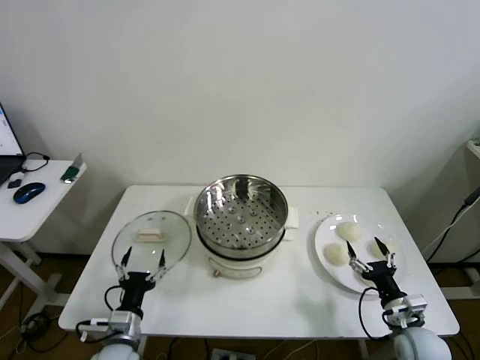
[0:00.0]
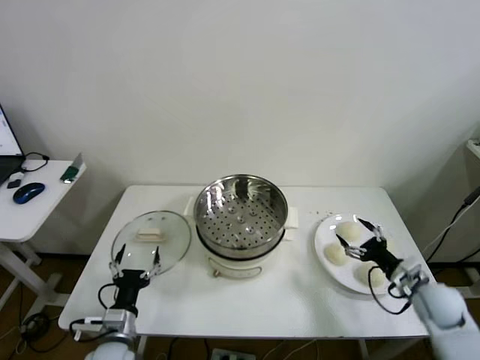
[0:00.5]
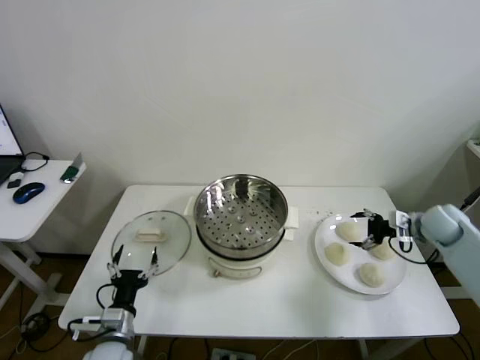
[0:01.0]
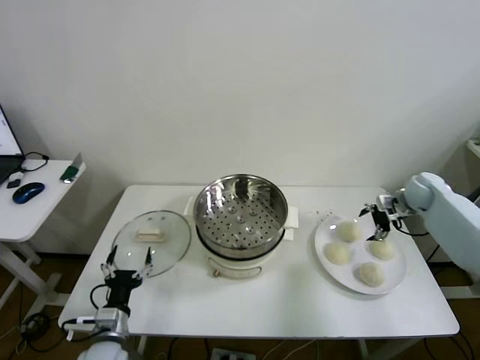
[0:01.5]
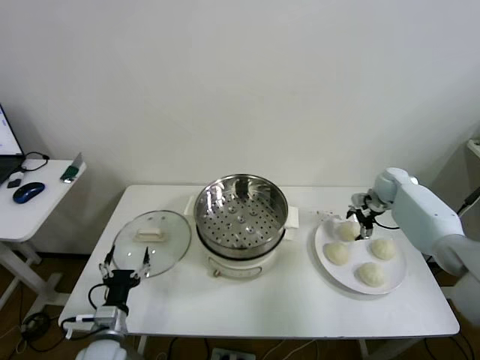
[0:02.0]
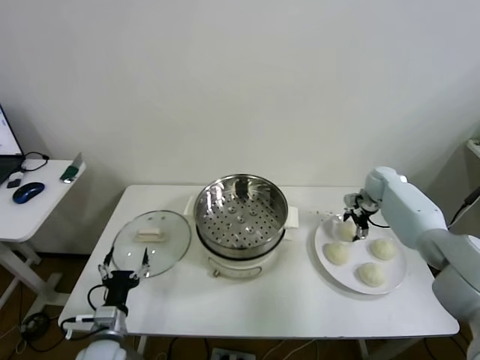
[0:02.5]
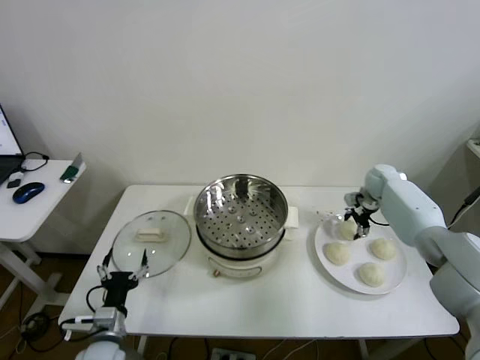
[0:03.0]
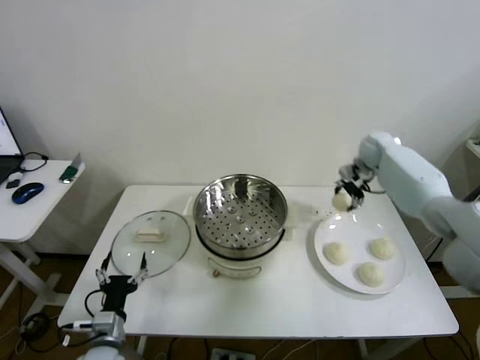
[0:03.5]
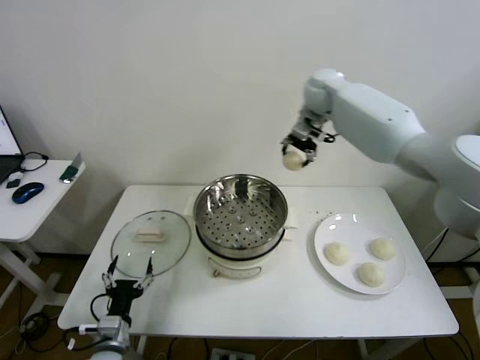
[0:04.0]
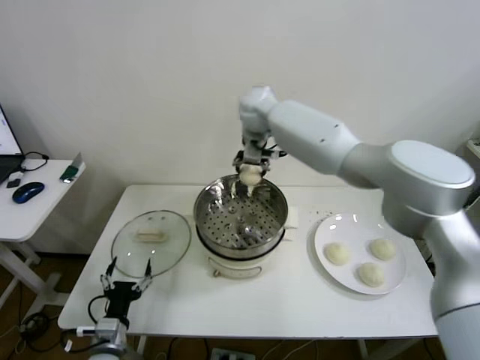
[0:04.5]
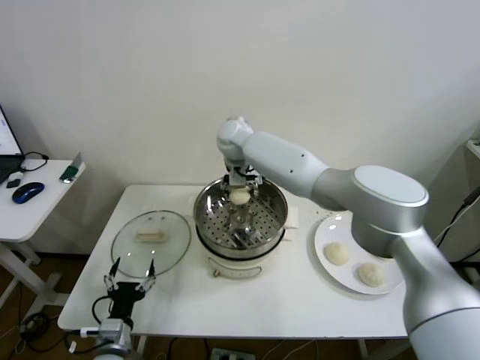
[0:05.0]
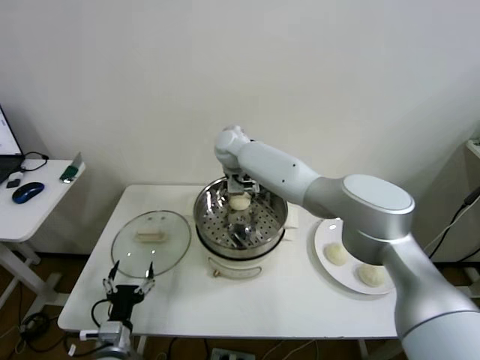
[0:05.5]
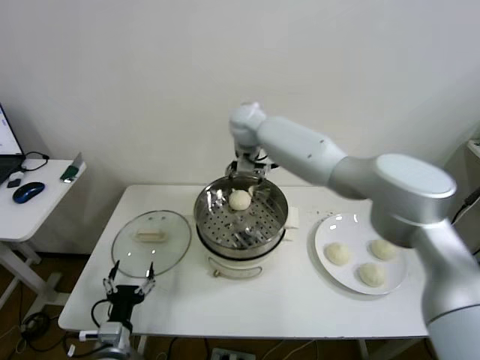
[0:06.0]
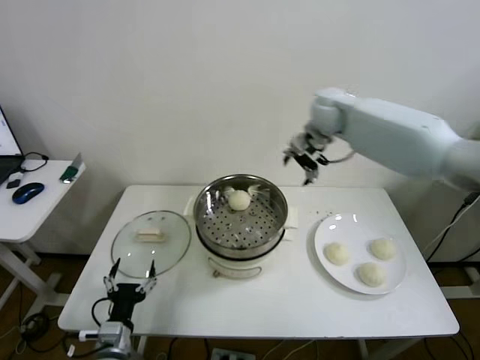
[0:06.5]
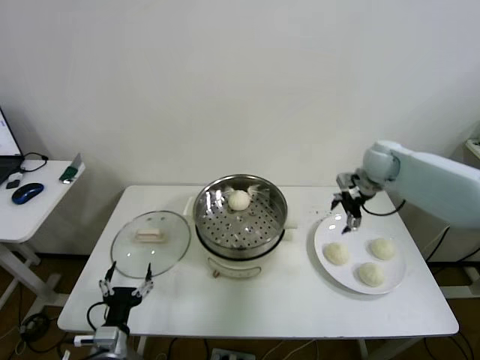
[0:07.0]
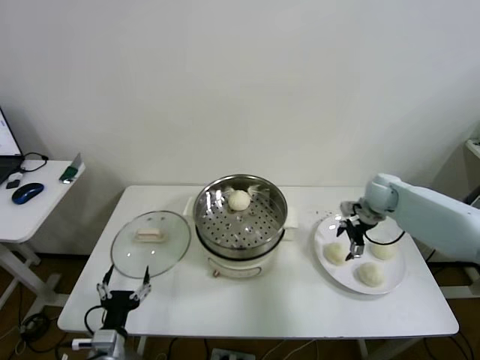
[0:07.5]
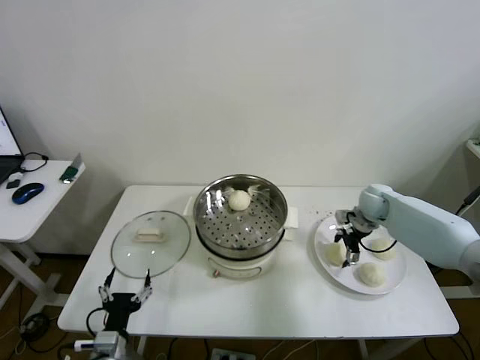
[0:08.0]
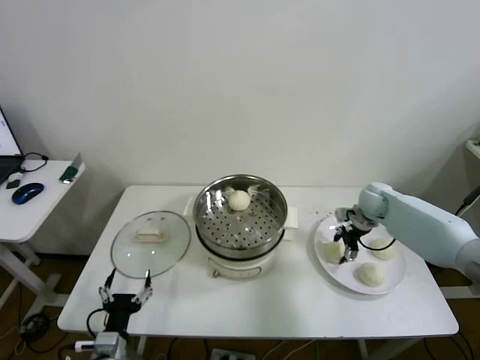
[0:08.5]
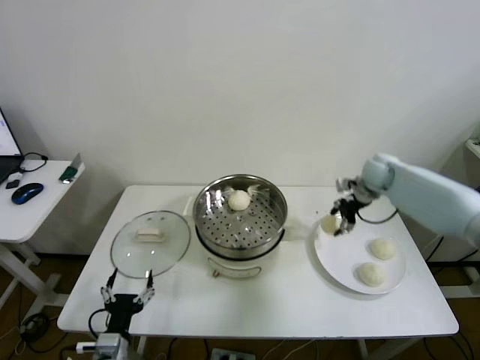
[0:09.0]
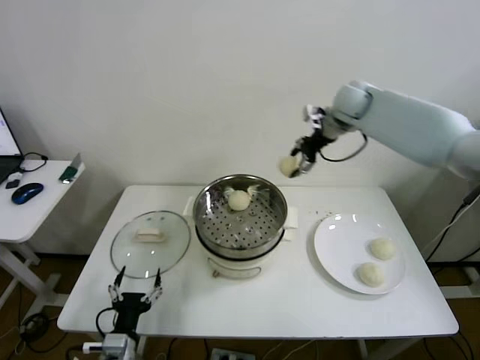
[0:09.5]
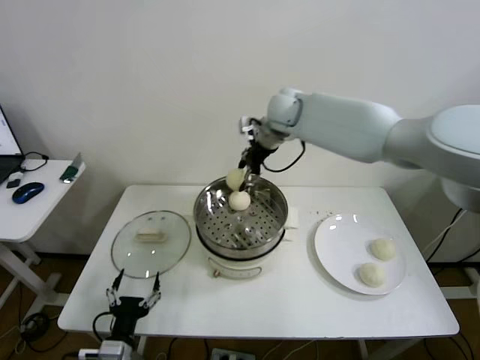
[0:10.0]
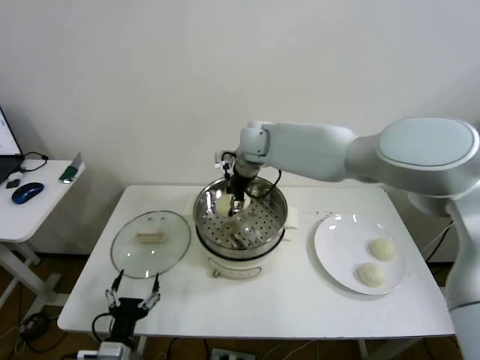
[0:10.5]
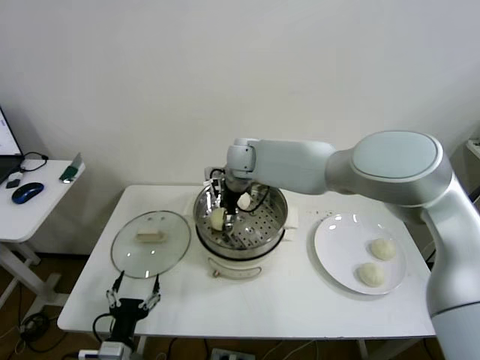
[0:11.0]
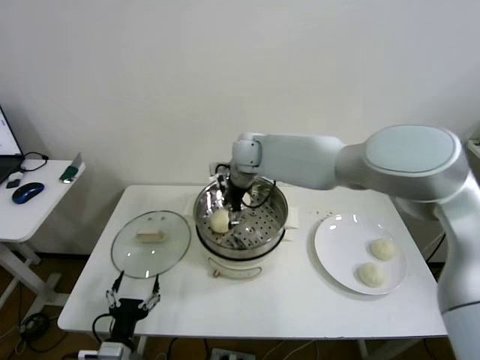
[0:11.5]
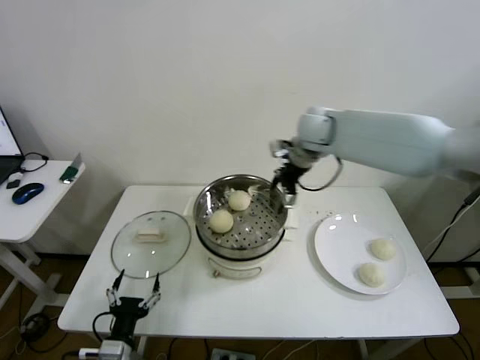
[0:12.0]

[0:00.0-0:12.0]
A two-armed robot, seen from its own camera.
Step, 0:00.0 to 0:02.5: Grasp the baozi in the plate with right gripper.
Step, 0:03.0 to 0:05.5: Place the baozi on the steamer with right gripper.
Step, 0:06.0 to 0:08.5: Grasp the baozi in the plate with right gripper.
Step, 0:09.0 to 0:11.0: Place the baozi on the steamer with right gripper.
0:02.0 to 0:04.0: The right gripper moves to the left and upward, approximately 40 cm, and closes.
0:04.0 to 0:06.0: The right gripper shifts about 10 cm to the left and downward, and opens up.
0:06.0 to 0:08.0: The right gripper moves to the right and downward, roughly 40 cm.
0:08.0 to 0:10.0: The right gripper heads to the left and upward, covering approximately 35 cm, and closes its fingers.
0:10.0 to 0:12.0: The right gripper moves to the right, about 10 cm, and opens.

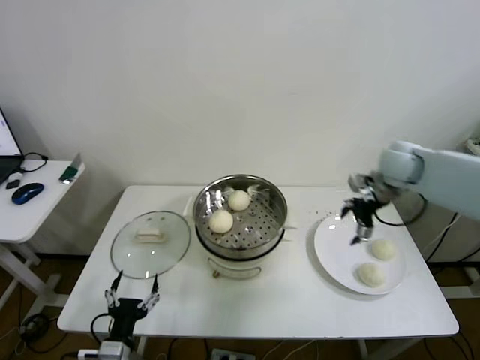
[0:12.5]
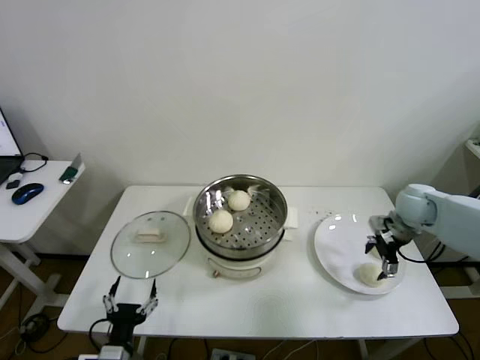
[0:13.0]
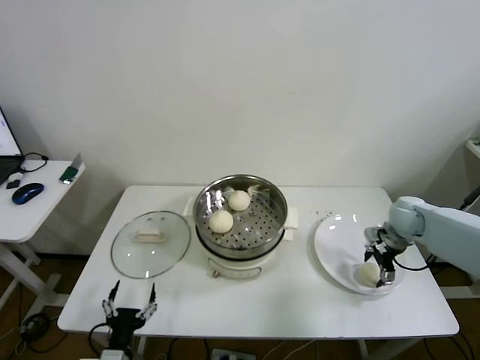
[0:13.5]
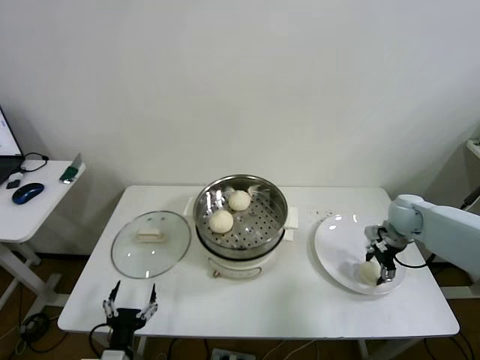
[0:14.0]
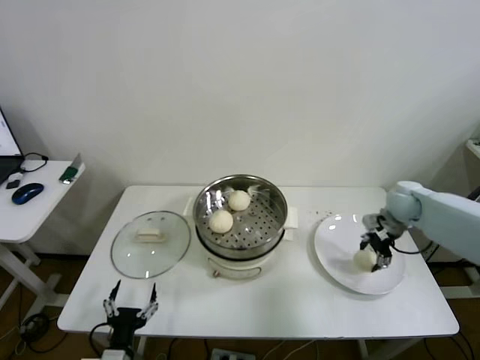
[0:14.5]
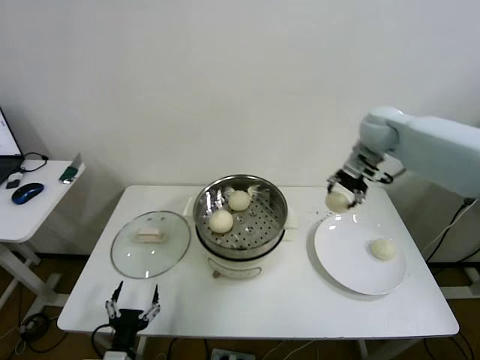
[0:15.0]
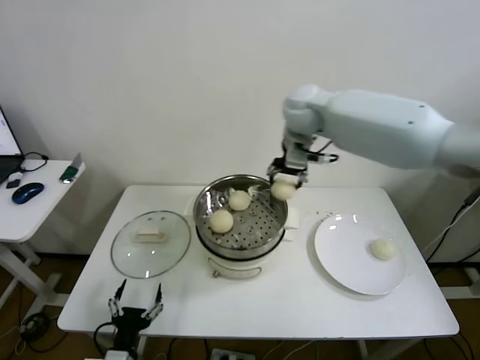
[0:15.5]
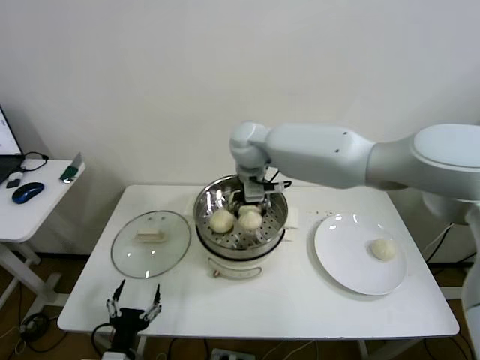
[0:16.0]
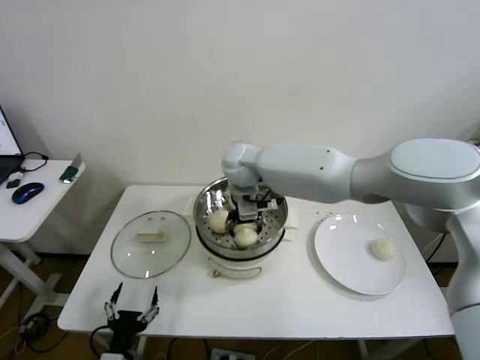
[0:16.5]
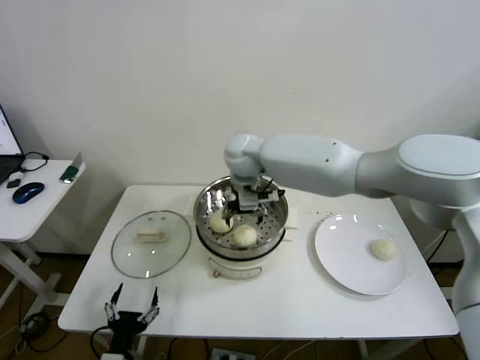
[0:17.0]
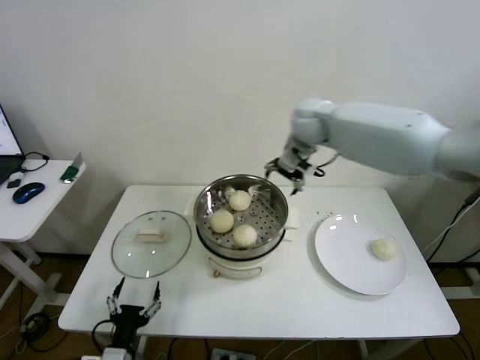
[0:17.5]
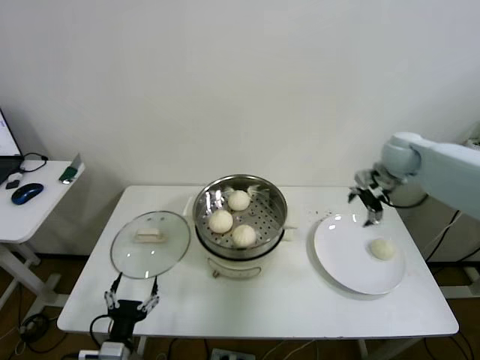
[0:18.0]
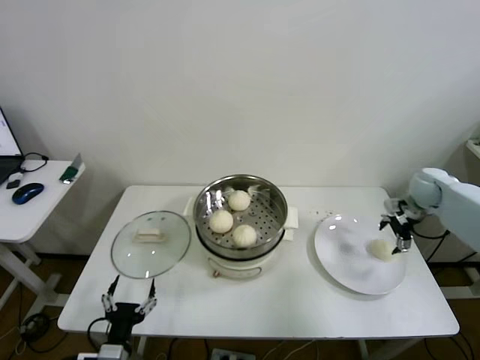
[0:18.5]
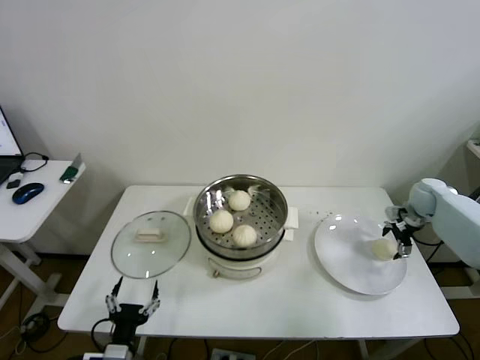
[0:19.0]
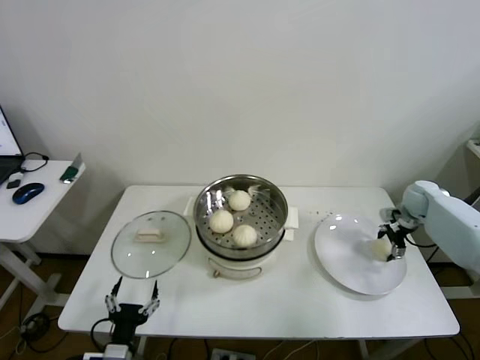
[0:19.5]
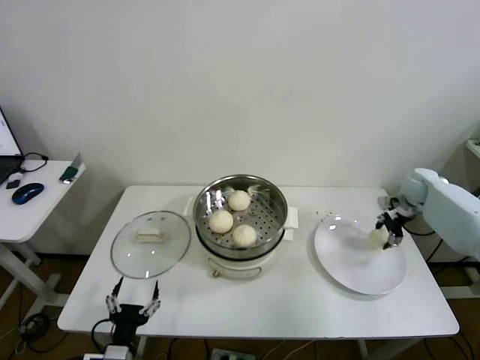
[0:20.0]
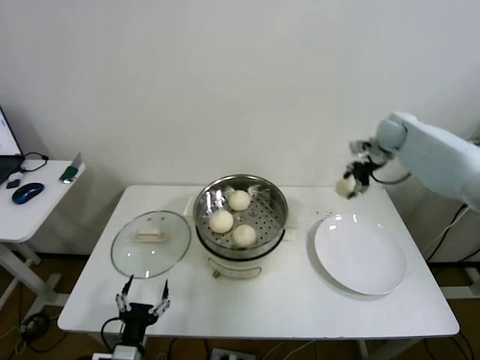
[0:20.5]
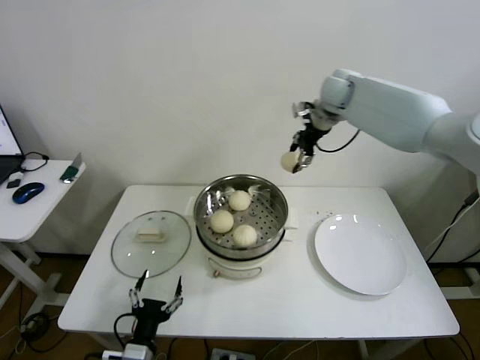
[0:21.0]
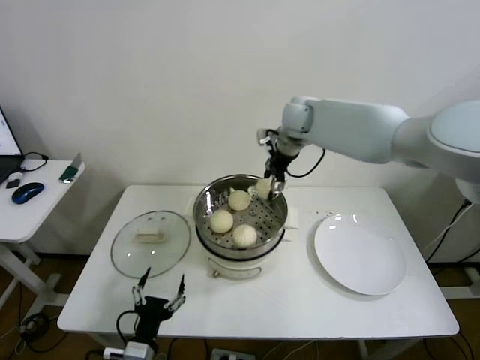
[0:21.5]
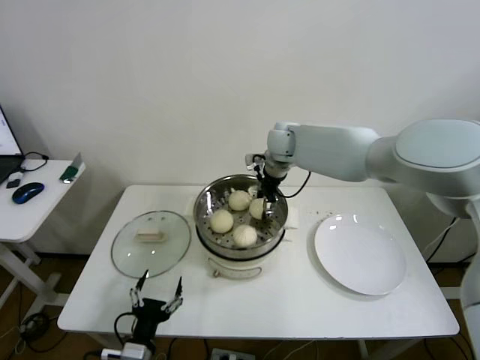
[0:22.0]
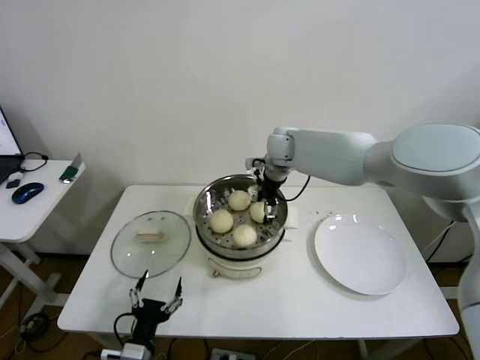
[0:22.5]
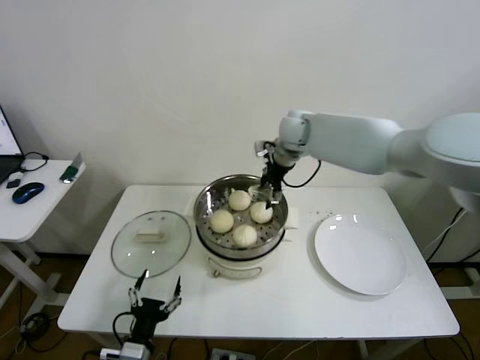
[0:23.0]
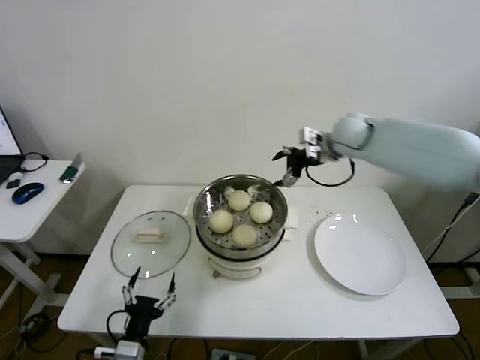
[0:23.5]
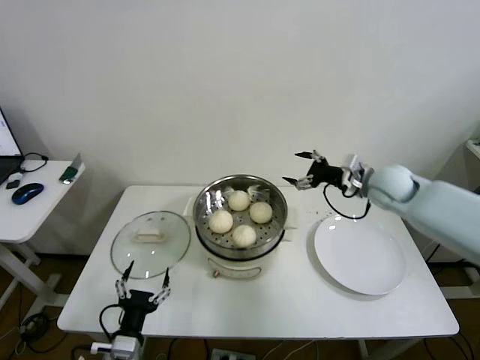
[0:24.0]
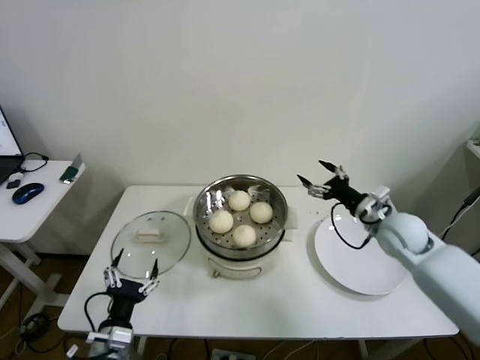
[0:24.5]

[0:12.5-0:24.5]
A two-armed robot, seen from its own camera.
Step, 0:12.5 to 0:14.0: Grasp the baozi in the plate with right gripper.
Step, 0:14.5 to 0:16.5: Place the baozi on the steamer with right gripper.
Step, 0:17.0 to 0:19.5: Grasp the baozi in the plate with right gripper.
Step, 0:20.0 to 0:22.5: Place the baozi on the steamer with right gripper.
0:12.5 to 0:14.5: The right gripper shifts about 10 cm downward, and closes.
0:14.5 to 0:16.5: The right gripper is displaced to the left by roughly 40 cm.
0:16.5 to 0:18.5: The right gripper shifts roughly 50 cm to the right, and opens up.
0:18.5 to 0:20.5: The right gripper travels upward, forward and to the left by roughly 20 cm, and closes.
0:20.5 to 0:22.5: The right gripper shifts some 30 cm to the left, and opens.
0:22.5 to 0:24.5: The left gripper ends up some 5 cm from where it was. Meanwhile the right gripper moves to the right, backward and downward, roughly 35 cm.

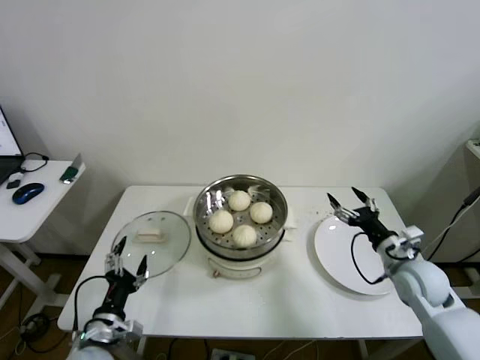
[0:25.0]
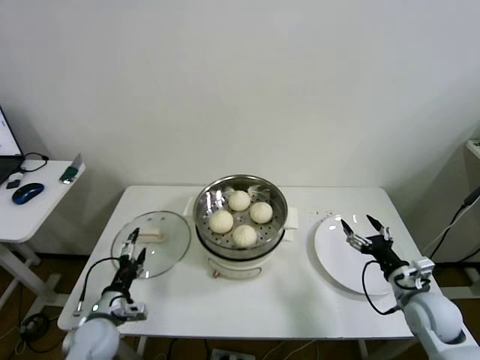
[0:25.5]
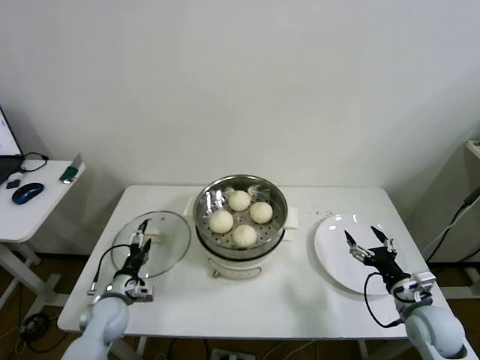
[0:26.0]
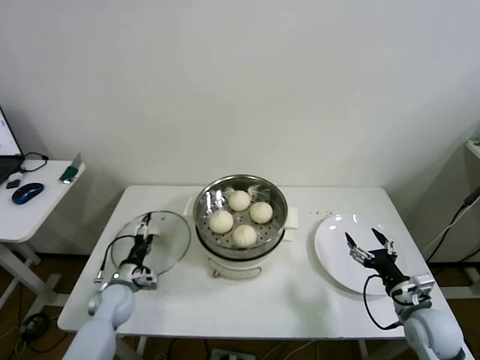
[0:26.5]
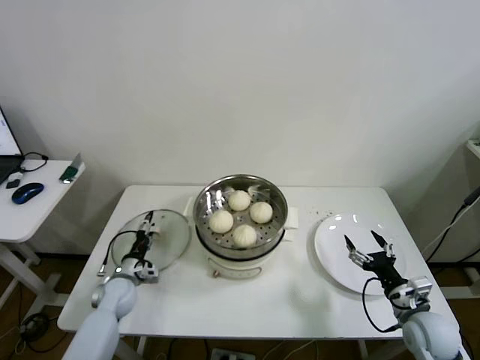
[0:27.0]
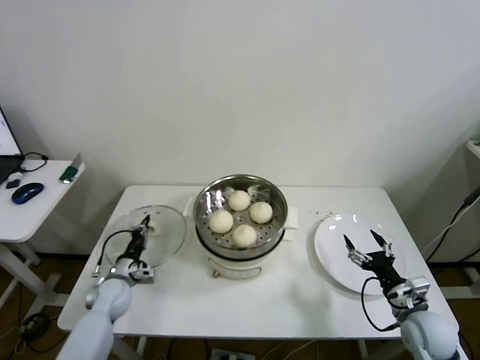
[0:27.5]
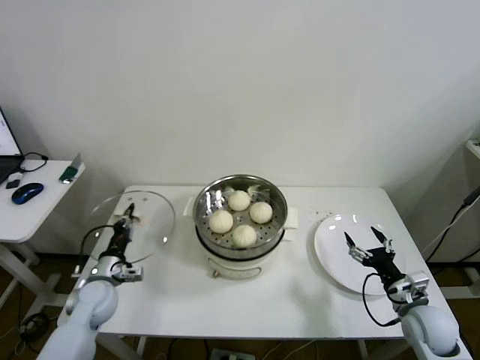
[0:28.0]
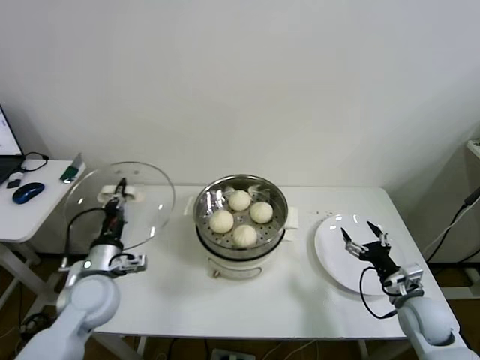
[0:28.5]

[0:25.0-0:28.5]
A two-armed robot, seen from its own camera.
Step, 0:25.0 to 0:27.5: Grasp the pot lid with left gripper.
0:25.0 to 0:27.0: The right gripper is displaced backward and downward by roughly 10 cm. The left gripper goes about 20 cm forward and downward.
0:27.0 to 0:28.5: The left gripper heads upward and backward, covering approximately 20 cm, and closes its fingers.
